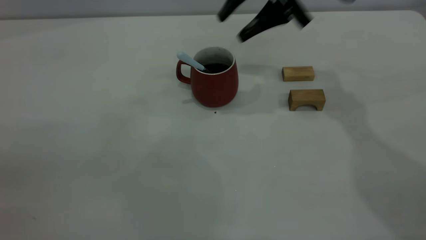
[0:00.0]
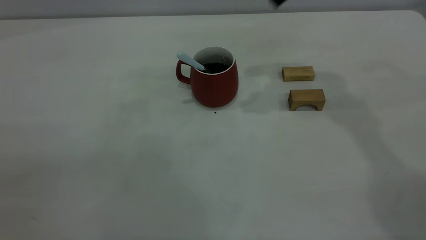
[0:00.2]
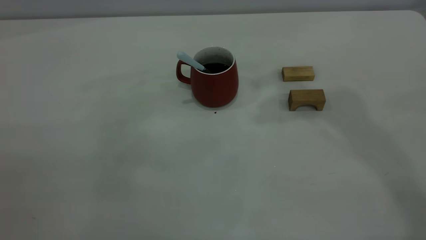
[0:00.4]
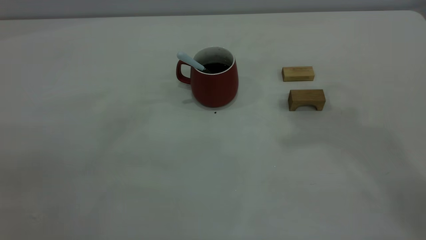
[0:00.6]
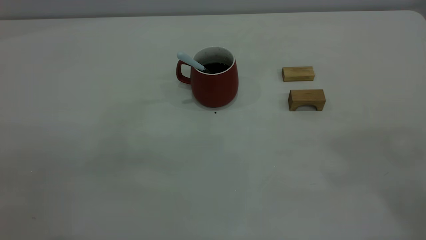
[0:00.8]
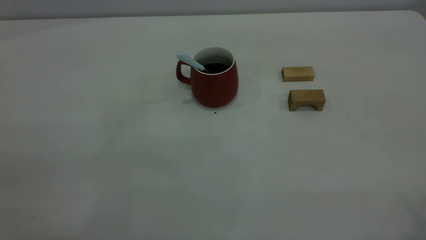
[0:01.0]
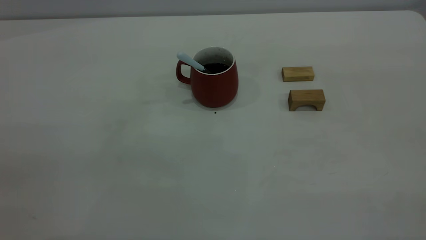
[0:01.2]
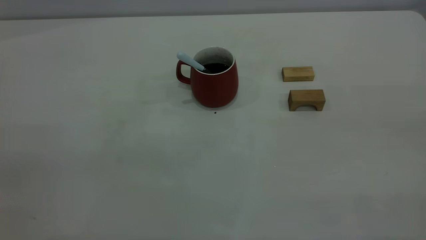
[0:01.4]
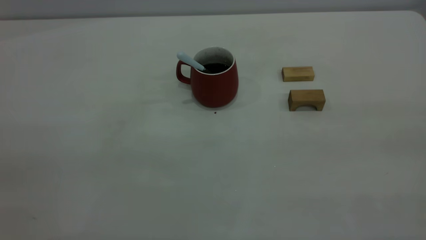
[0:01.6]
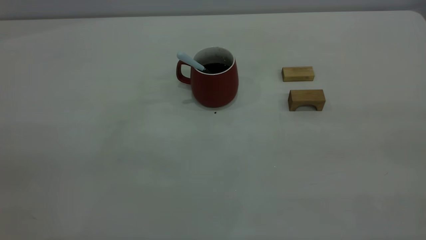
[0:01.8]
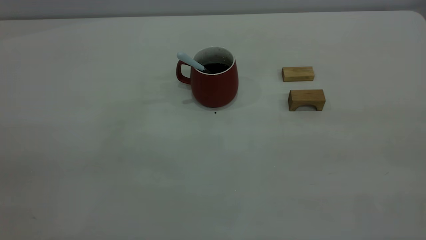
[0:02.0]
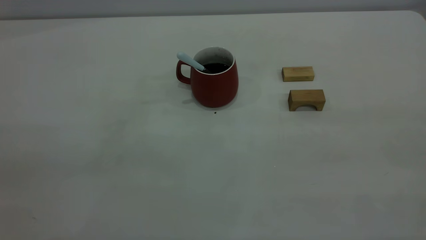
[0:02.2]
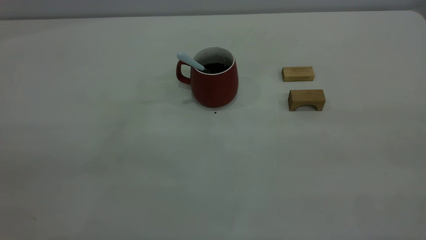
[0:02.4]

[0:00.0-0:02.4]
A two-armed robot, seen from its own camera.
0:00.0 to 0:01.2: The right gripper heads backward, upward and to the right, covering some 50 cm, and closes.

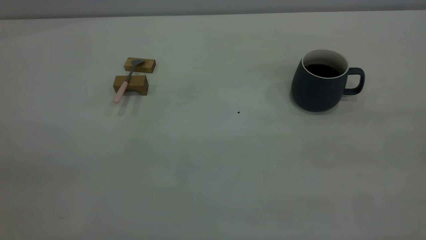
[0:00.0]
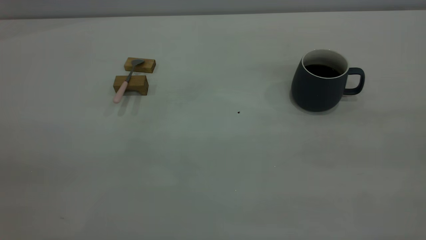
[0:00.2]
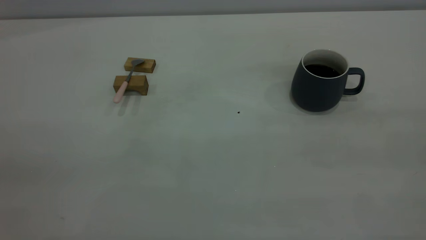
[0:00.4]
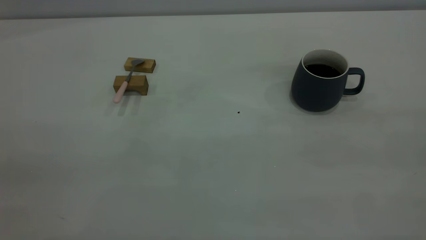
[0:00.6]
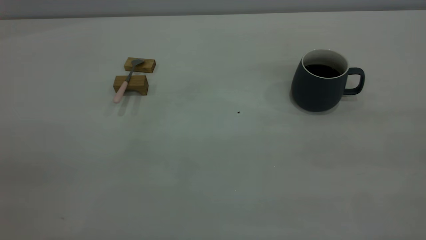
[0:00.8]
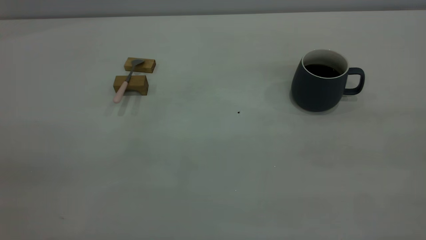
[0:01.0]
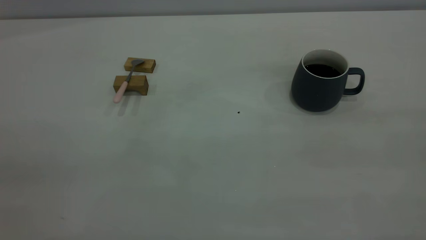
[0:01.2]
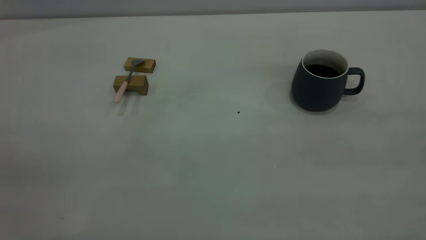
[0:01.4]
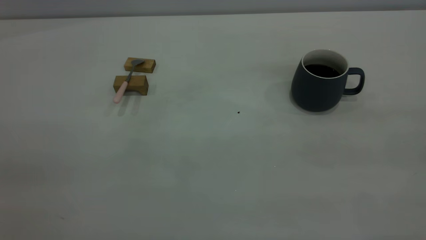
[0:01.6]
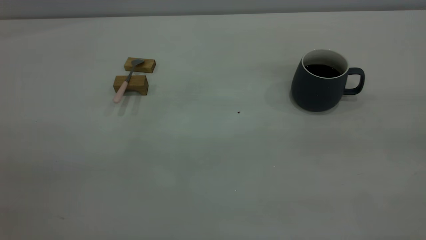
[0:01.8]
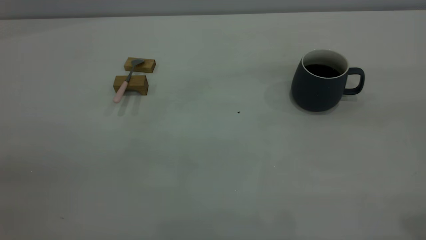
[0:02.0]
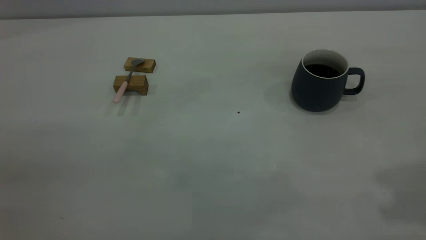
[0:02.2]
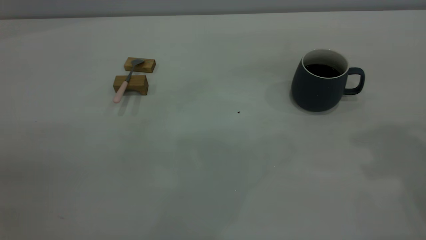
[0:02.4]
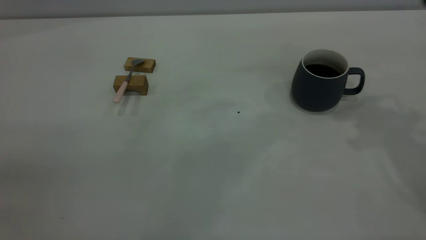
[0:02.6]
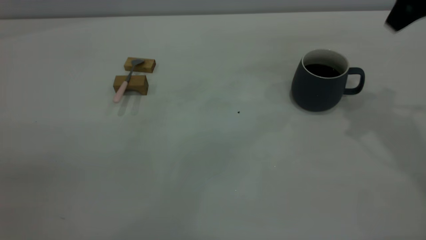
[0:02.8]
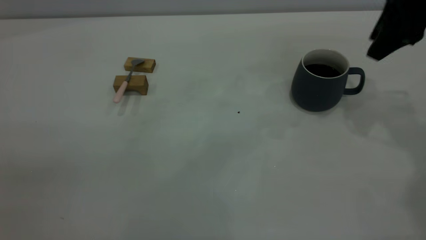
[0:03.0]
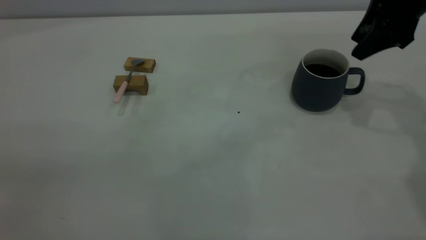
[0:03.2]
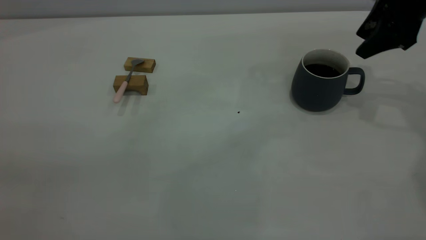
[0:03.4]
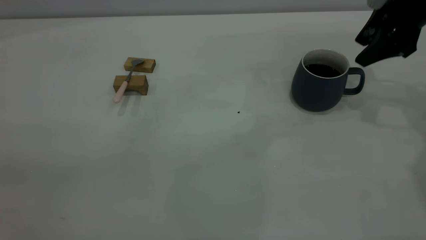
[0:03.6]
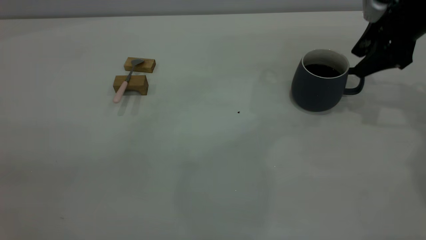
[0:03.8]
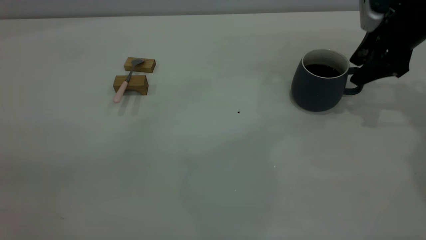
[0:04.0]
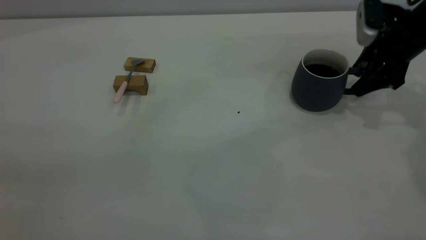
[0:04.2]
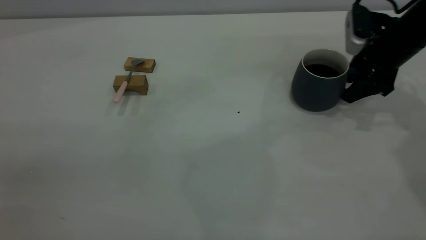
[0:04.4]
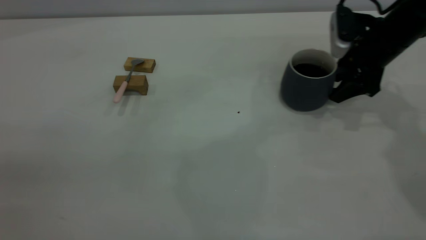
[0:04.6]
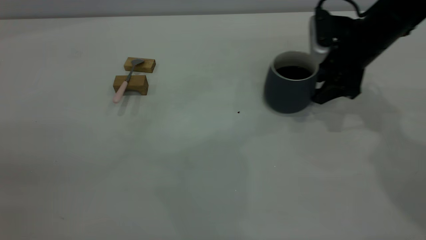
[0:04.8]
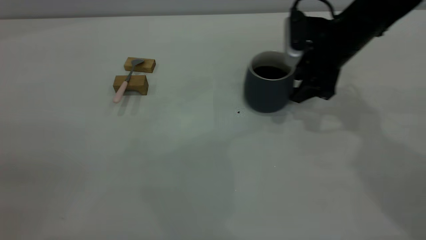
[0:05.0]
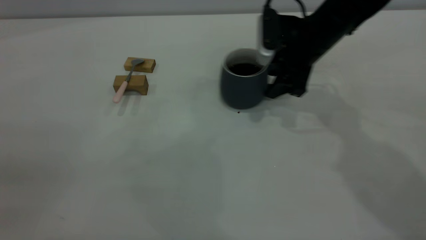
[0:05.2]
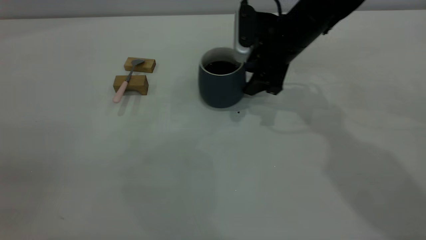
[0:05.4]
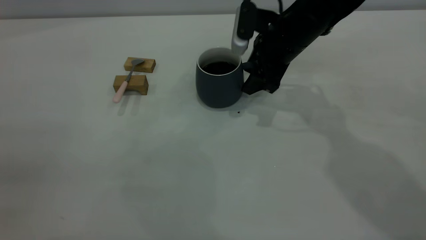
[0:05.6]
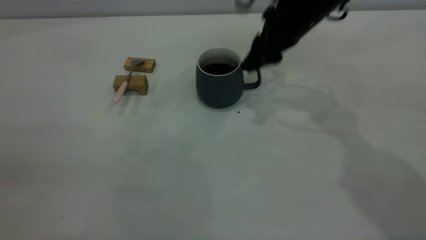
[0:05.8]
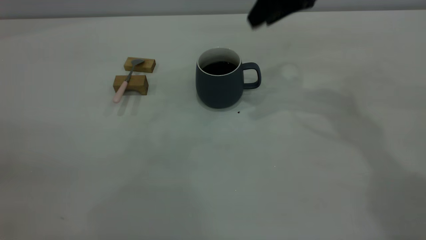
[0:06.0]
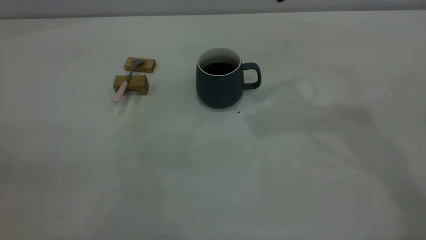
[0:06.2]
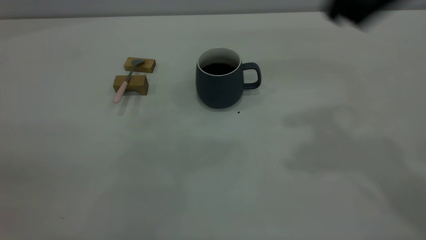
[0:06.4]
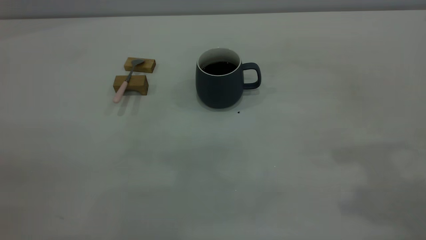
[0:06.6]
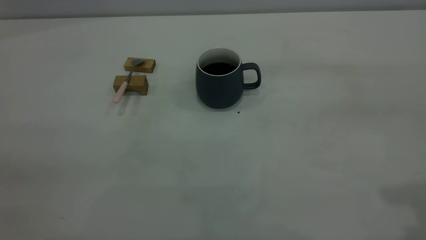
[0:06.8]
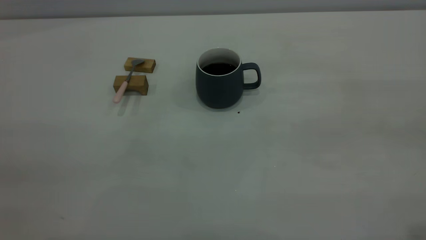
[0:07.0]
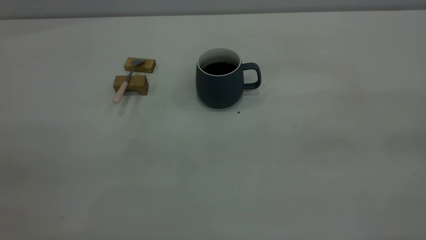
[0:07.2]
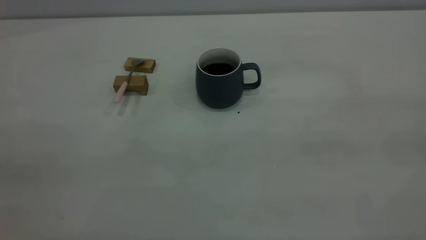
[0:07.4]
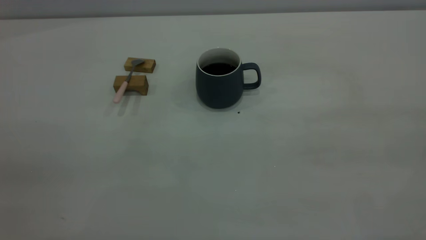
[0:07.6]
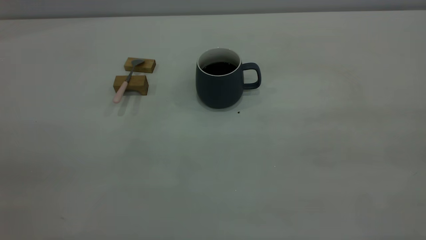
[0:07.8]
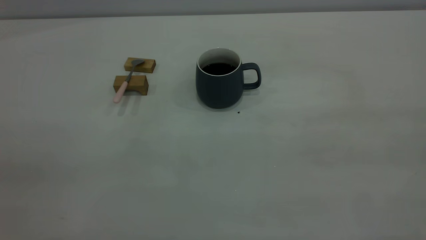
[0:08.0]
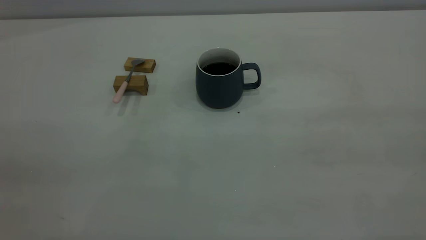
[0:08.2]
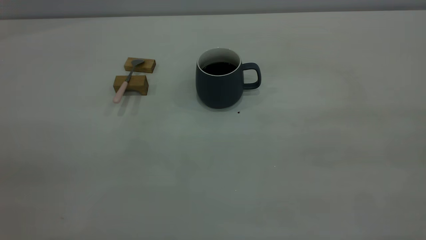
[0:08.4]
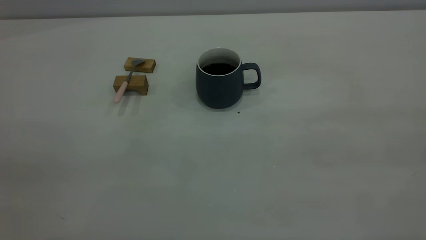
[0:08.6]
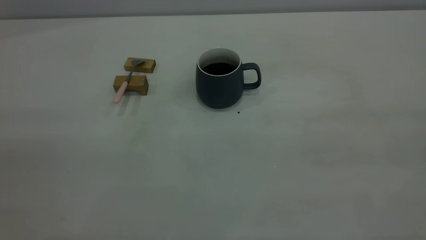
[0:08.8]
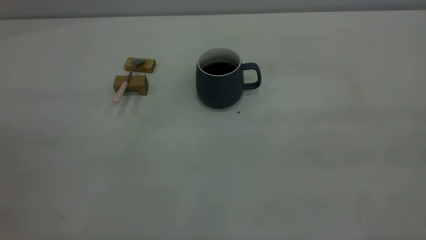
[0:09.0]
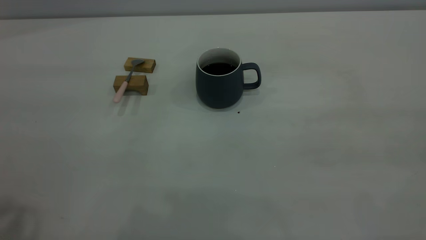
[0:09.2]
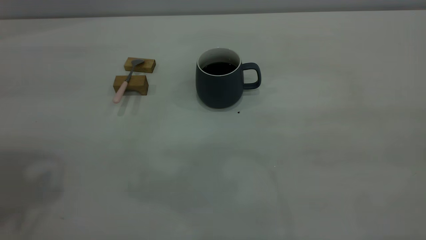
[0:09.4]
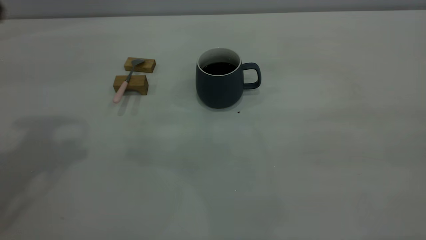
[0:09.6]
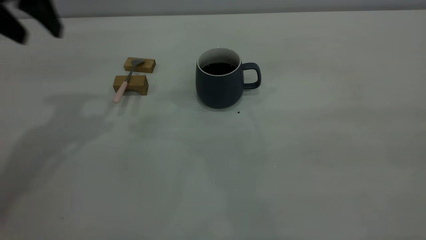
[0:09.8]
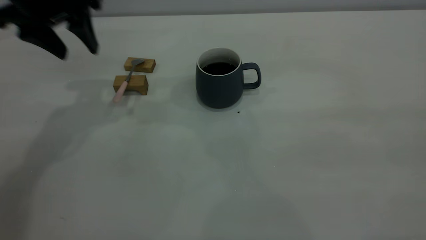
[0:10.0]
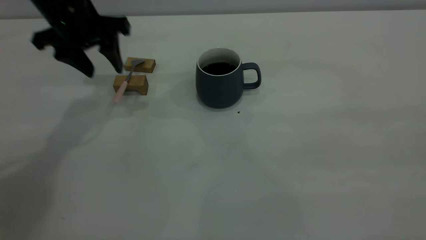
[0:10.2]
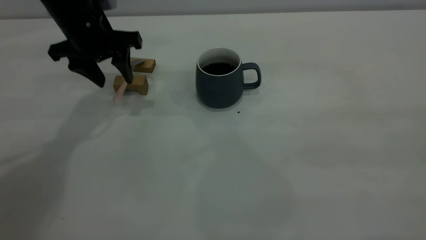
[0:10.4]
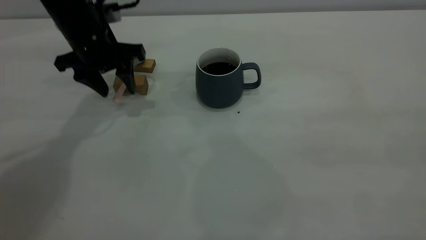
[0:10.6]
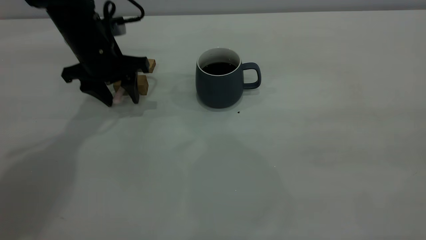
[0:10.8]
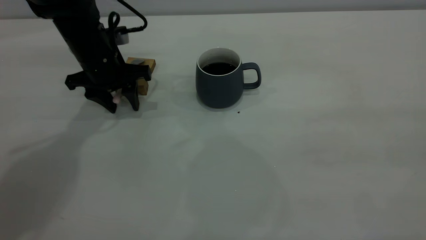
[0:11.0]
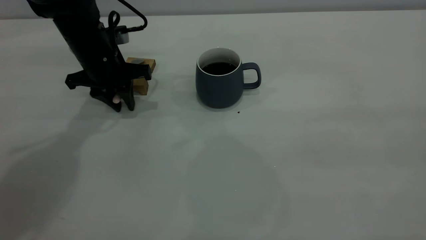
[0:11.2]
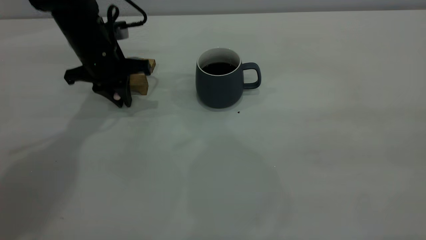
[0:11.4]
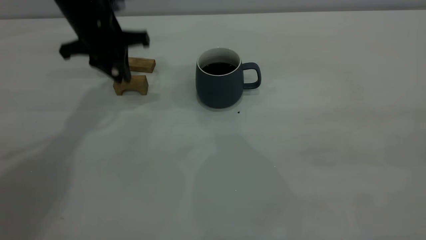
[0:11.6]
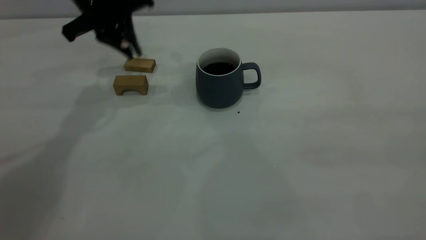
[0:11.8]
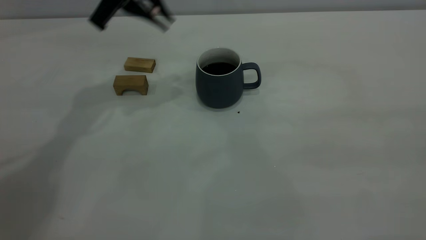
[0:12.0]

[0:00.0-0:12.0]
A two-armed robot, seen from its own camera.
Step, 0:00.0 to 0:05.8: Move the cup with coffee to the center of view.
Step, 0:06.0 to 0:11.6: Pick up the spoon.
0:00.0 to 0:01.6: Neither gripper changes place.
0:01.6 to 0:03.0: The right gripper moves forward, approximately 40 cm.
0:03.0 to 0:04.4: The right gripper is displaced downward by about 10 cm, and opens its fingers.
0:04.4 to 0:06.0: The right gripper is displaced upward and to the left by about 20 cm, and closes.
0:06.0 to 0:07.6: The right gripper travels backward by about 40 cm.
0:09.0 to 0:10.4: The left gripper goes approximately 40 cm forward and downward.
0:10.4 to 0:12.0: The left gripper goes approximately 10 cm upward, and closes up.

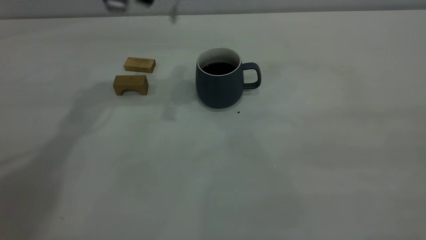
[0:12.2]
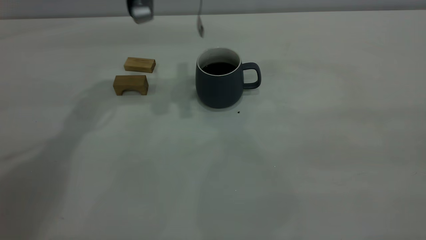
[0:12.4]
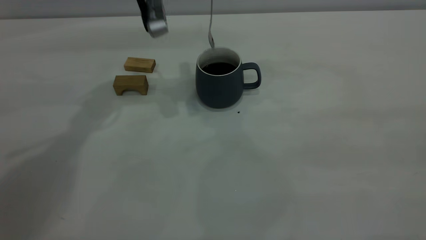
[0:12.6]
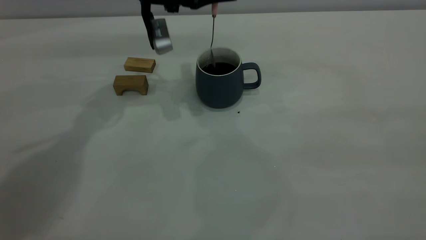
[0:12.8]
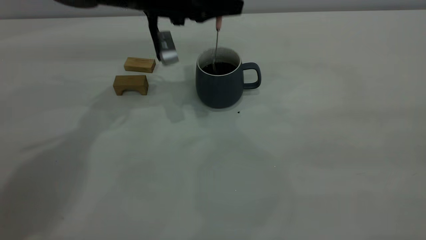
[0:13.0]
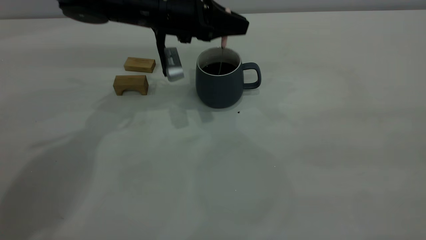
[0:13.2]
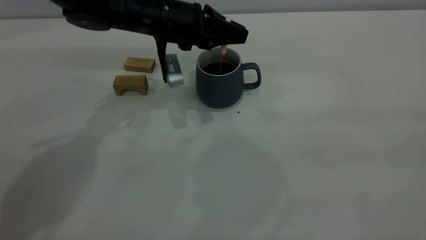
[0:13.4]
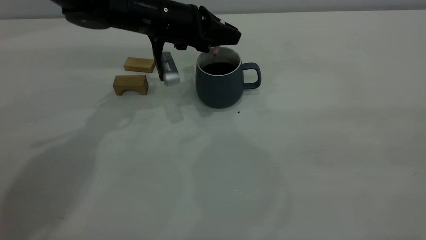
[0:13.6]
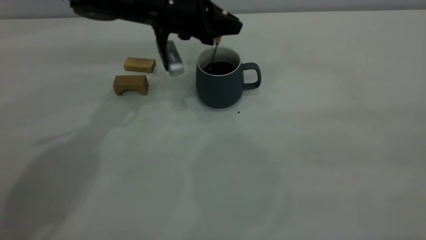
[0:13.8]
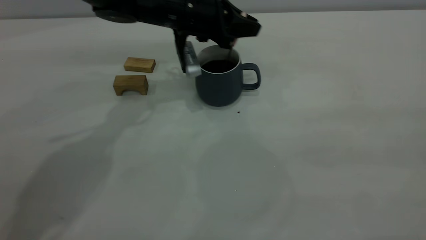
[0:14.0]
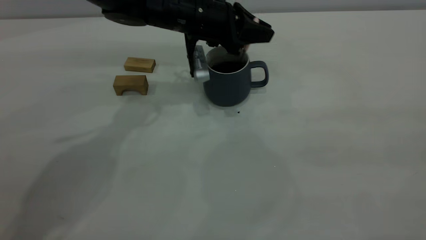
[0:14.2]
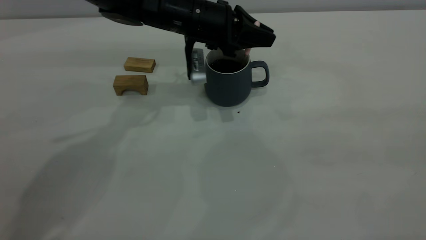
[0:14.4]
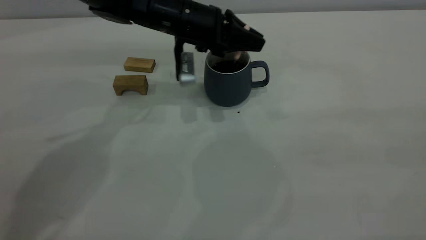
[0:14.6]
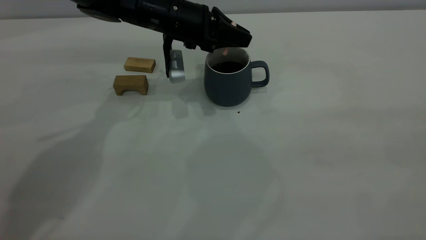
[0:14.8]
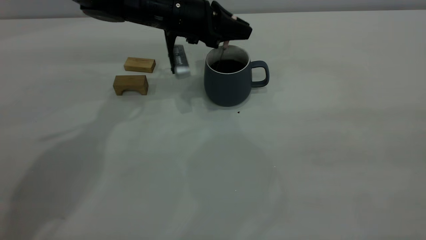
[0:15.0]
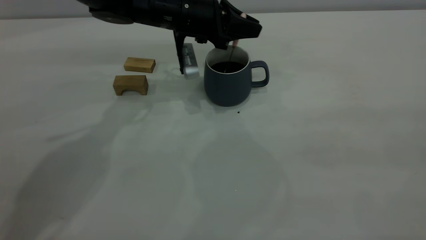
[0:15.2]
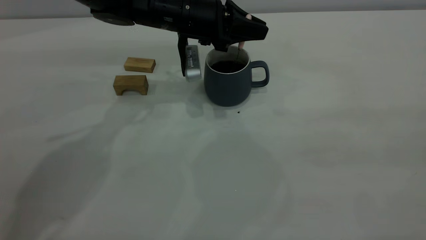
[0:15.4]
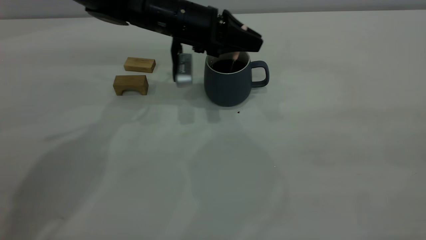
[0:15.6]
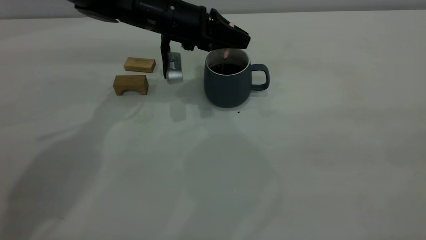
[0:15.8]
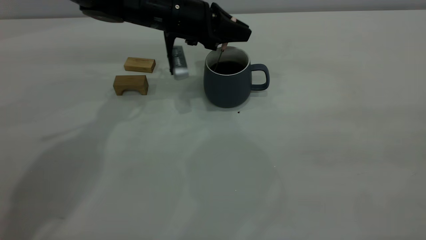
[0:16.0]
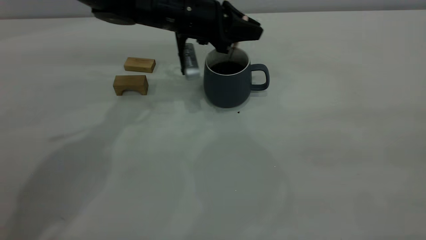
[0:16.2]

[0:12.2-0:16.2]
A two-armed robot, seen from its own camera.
0:12.2 to 0:13.6: The left gripper shifts roughly 10 cm downward.
0:13.6 to 0:16.2: The grippers stay close to where they were, moving slightly.
